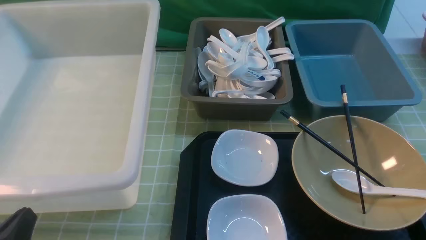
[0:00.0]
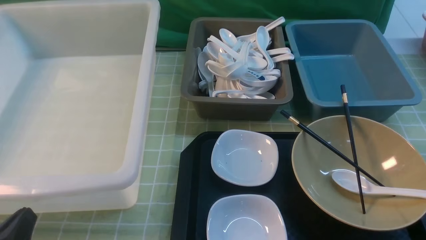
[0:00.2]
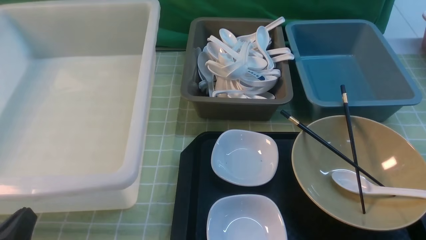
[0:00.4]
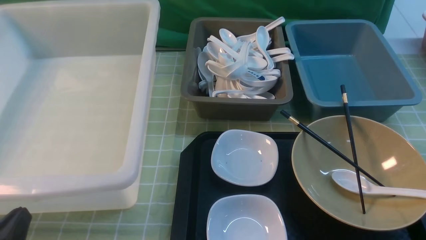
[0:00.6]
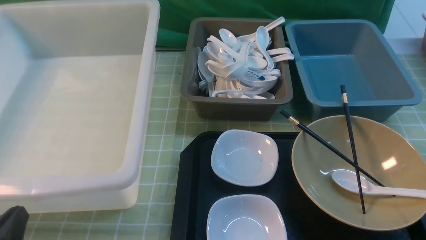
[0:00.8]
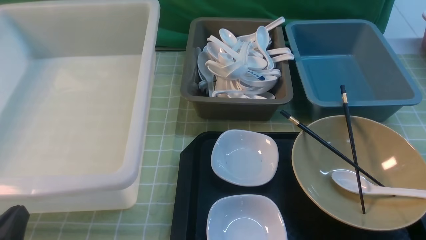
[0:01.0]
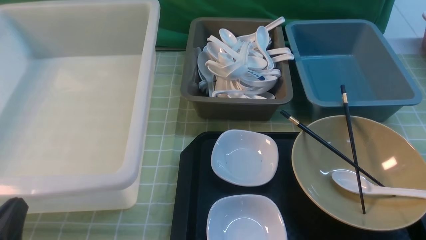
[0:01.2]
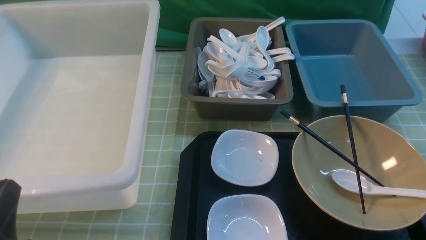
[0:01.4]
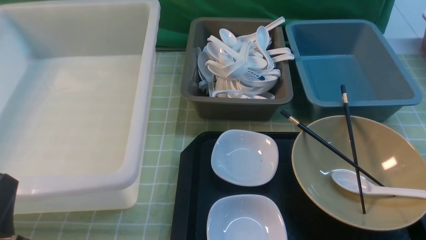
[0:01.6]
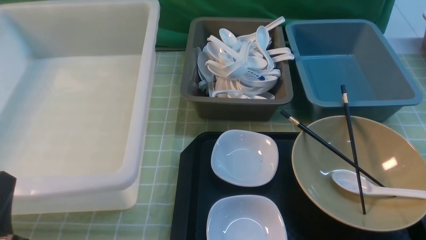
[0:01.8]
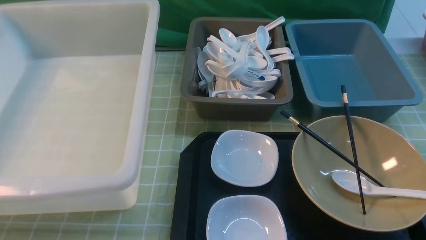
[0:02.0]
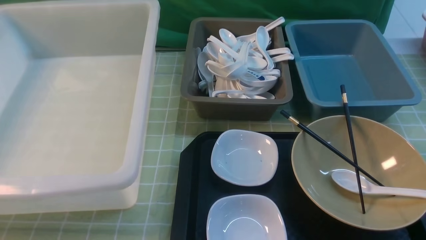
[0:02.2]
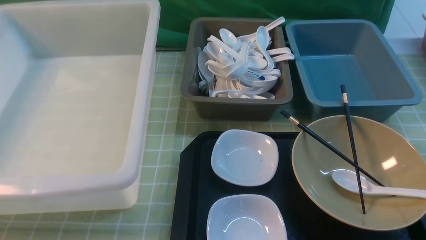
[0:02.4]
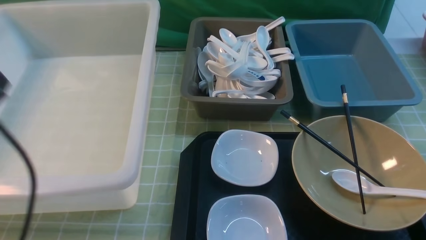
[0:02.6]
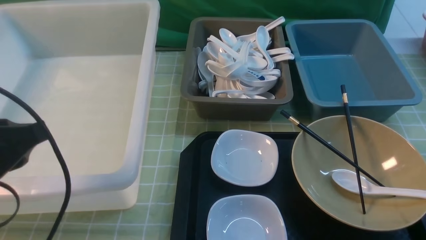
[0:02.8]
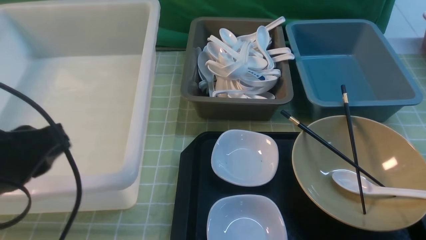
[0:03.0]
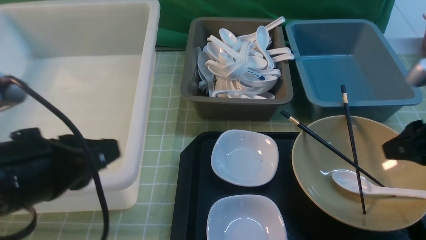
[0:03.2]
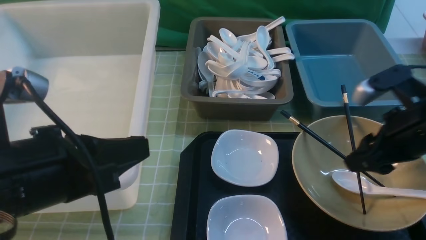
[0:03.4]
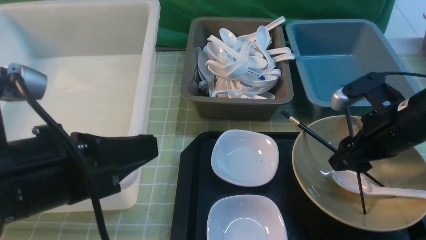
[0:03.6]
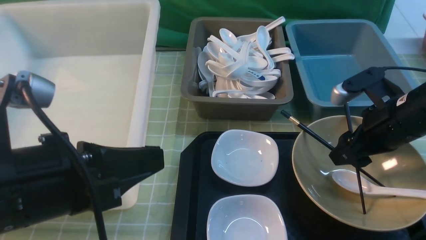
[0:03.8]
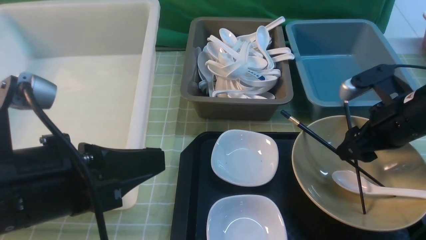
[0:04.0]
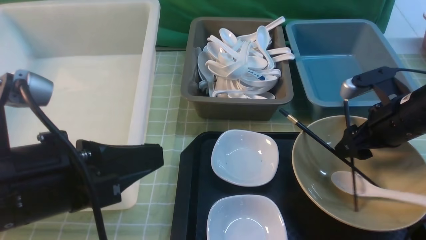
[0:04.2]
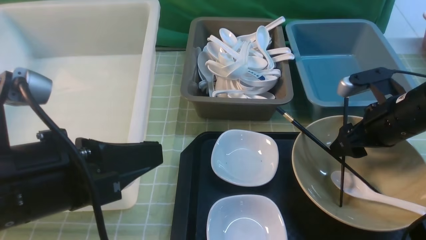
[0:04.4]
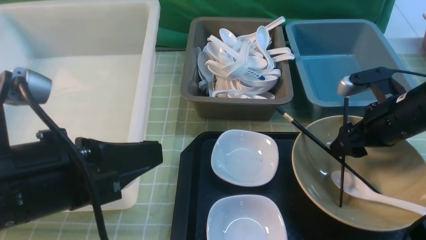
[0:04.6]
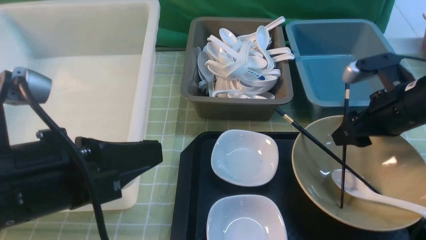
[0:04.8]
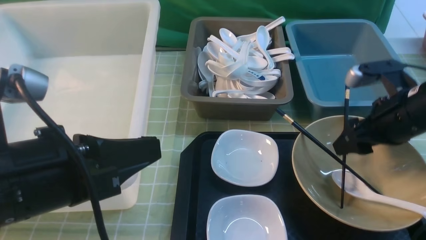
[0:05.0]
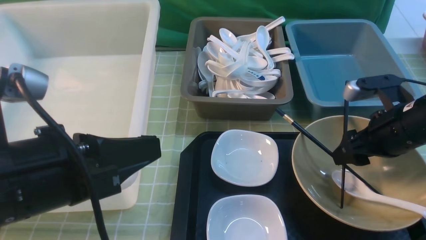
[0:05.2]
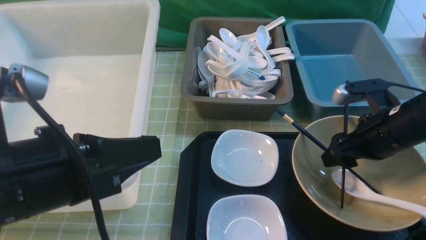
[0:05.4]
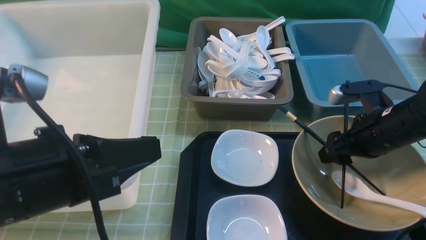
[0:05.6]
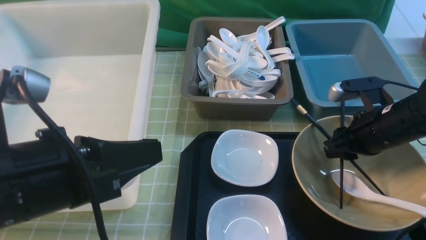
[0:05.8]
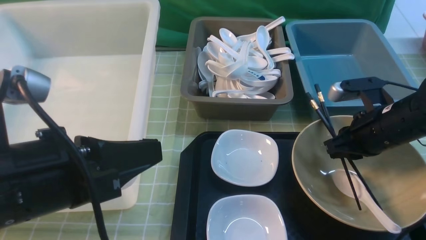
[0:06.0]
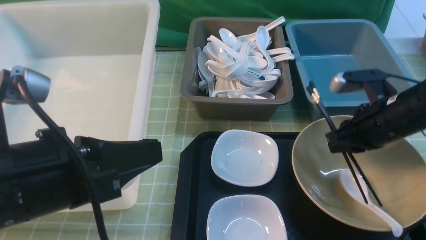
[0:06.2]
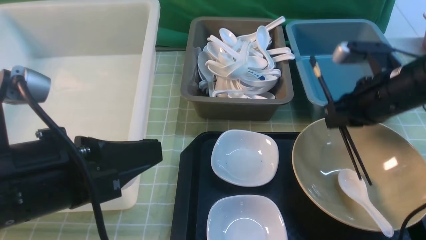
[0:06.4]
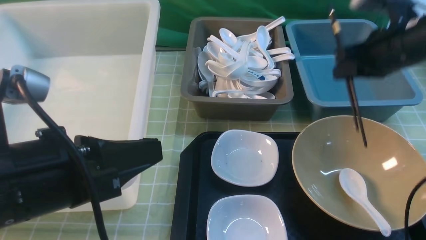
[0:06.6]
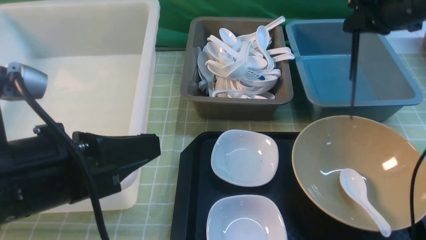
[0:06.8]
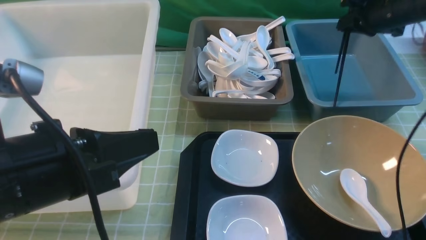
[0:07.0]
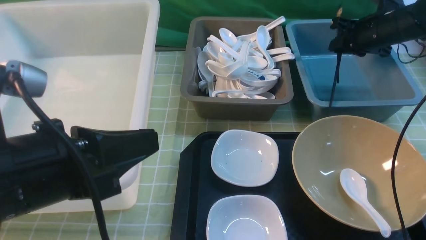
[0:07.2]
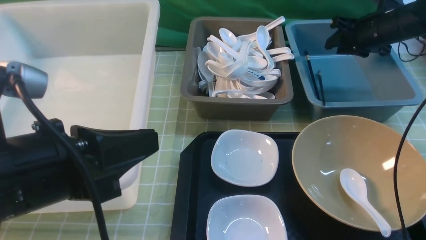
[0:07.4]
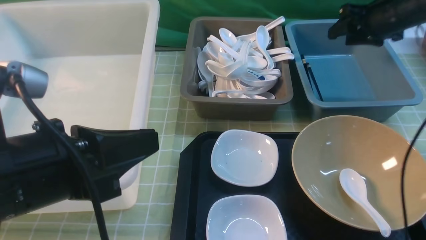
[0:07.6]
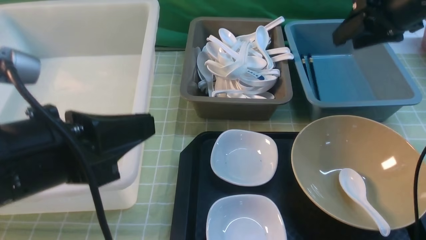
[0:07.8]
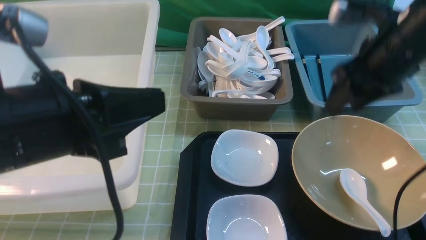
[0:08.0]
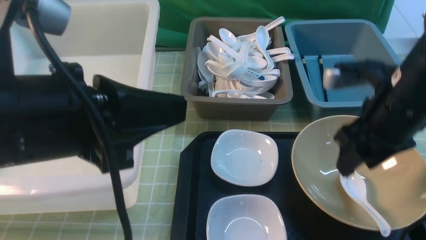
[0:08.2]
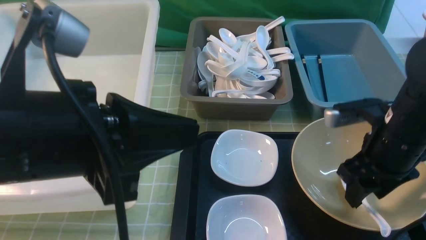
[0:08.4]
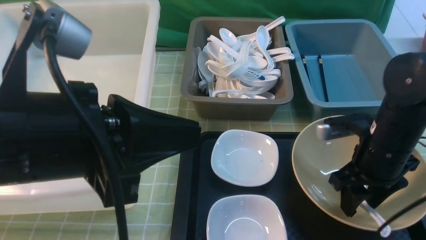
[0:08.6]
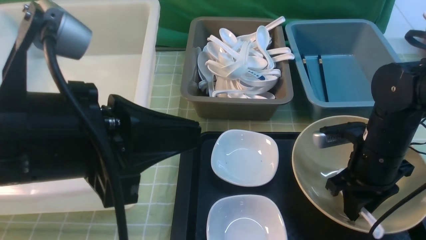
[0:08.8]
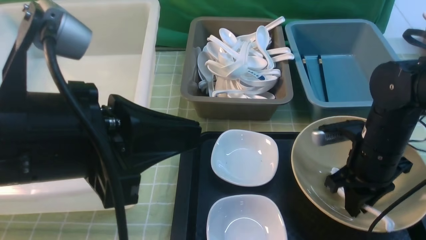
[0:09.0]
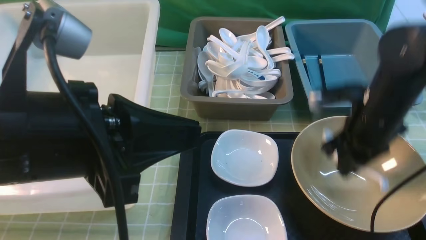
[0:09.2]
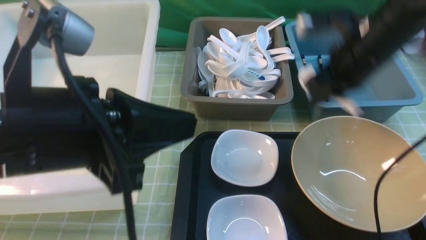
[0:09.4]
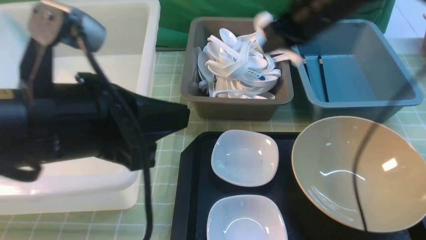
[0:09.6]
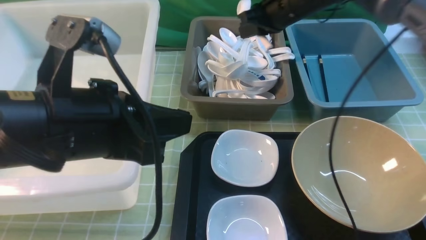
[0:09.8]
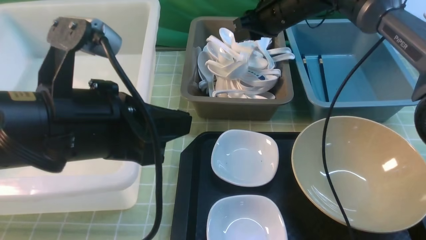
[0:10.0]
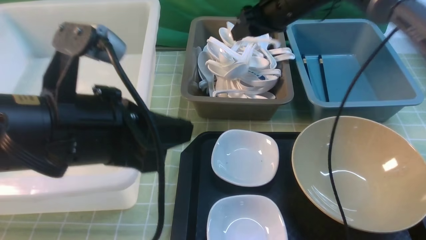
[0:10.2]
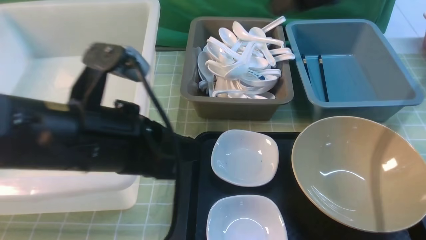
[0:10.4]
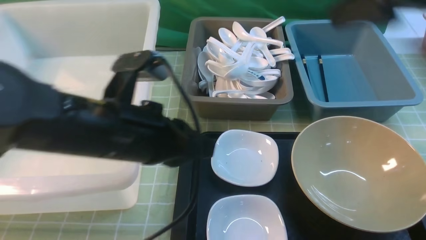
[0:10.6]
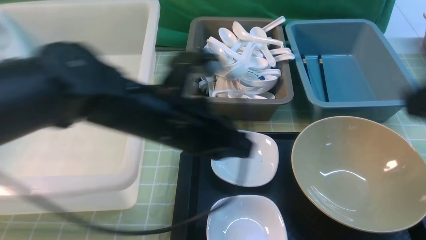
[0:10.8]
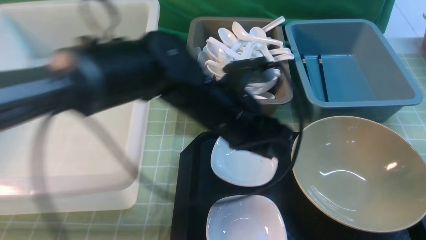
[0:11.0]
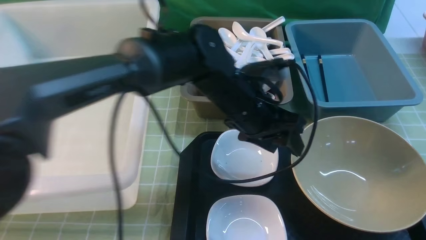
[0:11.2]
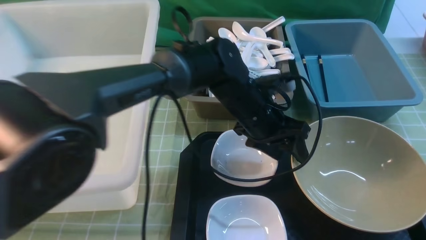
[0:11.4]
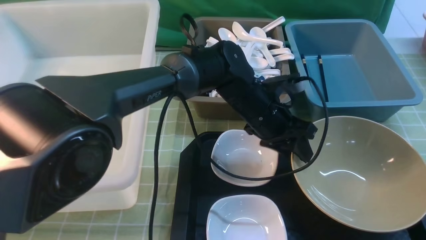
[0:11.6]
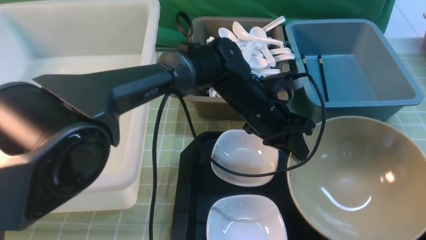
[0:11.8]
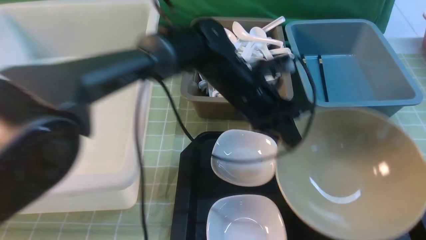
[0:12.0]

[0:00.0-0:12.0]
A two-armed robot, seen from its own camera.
Task of the whole recording: on green table put chopsticks spoon bowls plates into blue grey white boxes.
Step, 0:00.0 to 0:06.2: use the right arm to grab the chopsticks.
Step, 0:06.6 to 0:07.4: use the right arm to put the chopsticks into the small storage box on the right.
Step, 0:07.8 to 0:09.0: use the right arm to grab the soup spoon in the middle.
Step, 0:09.2 to 0:10.6: use the right arm to put the soup spoon into the small storage box in the middle.
Step, 0:10.8 to 0:11.6: use the left arm to grab the yellow noodle bowl on the left.
0:01.6 to 0:03.0: The left gripper travels upward and forward by some 15 cm.
0:03.0 to 0:04.4: The right gripper heads forward and downward, covering some 15 cm, and opens; the left gripper is displaced to the right by approximately 5 cm.
0:04.4 to 0:06.0: The right gripper closes its fingers.
0:06.0 to 0:07.6: The right gripper travels forward and upward by about 15 cm, and opens its fingers.
0:07.6 to 0:09.0: The left gripper ends up about 5 cm from where it was; the right gripper shifts approximately 20 cm backward, downward and to the left, and closes up.
0:09.0 to 0:10.4: The left gripper moves forward and downward, approximately 10 cm, while the right gripper travels upward by roughly 20 cm, and opens up.
0:10.4 to 0:12.0: The right gripper shifts some 30 cm backward, and closes its fingers. Meanwhile the left gripper shifts some 20 cm forward and to the right, and opens, then closes again.

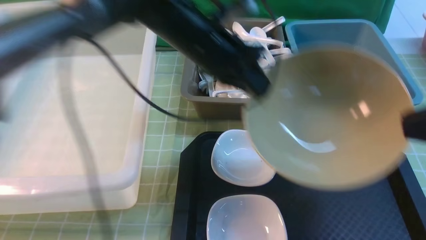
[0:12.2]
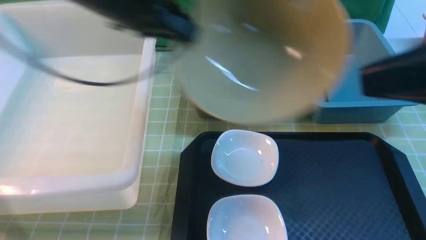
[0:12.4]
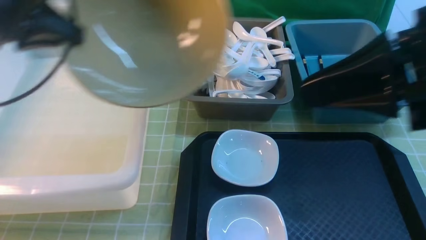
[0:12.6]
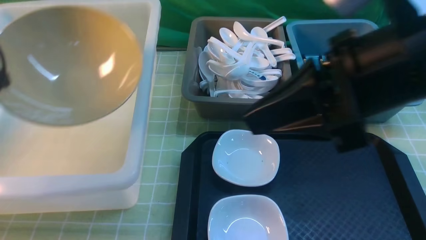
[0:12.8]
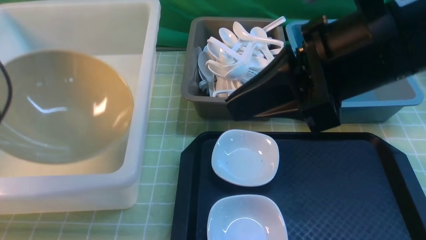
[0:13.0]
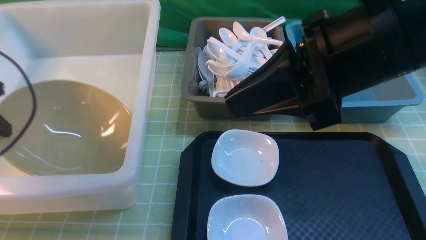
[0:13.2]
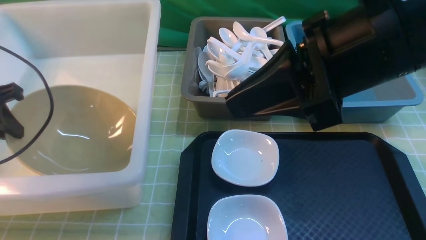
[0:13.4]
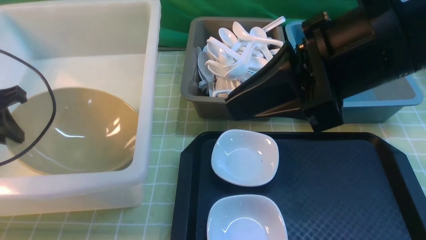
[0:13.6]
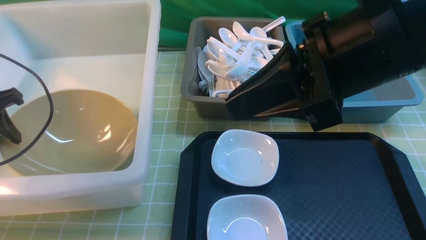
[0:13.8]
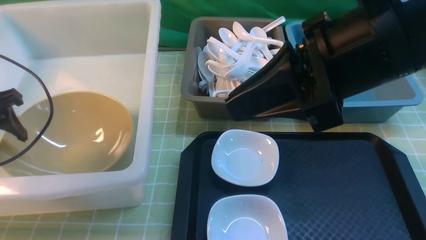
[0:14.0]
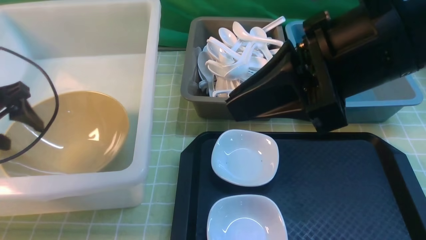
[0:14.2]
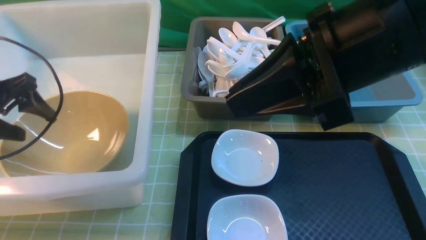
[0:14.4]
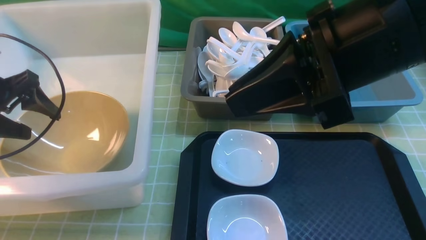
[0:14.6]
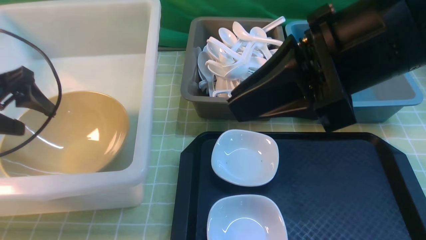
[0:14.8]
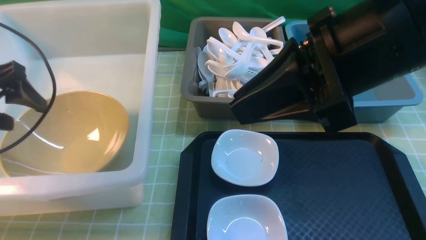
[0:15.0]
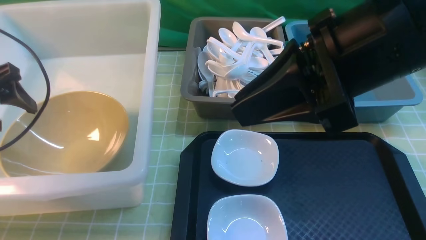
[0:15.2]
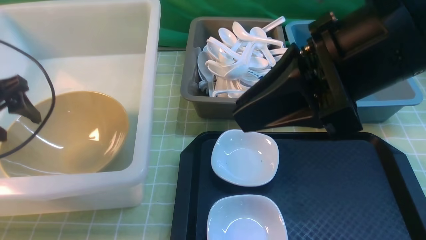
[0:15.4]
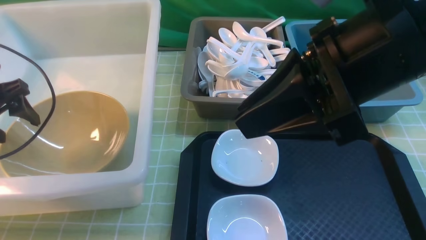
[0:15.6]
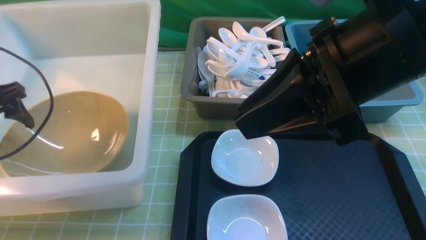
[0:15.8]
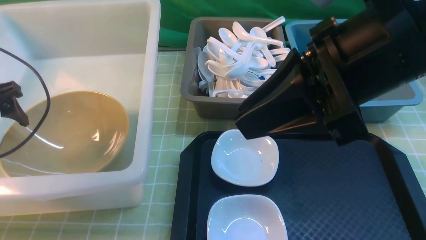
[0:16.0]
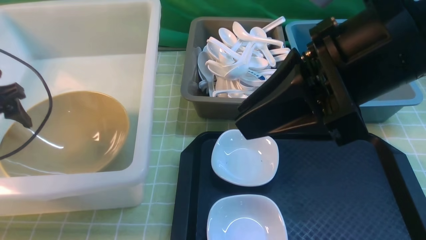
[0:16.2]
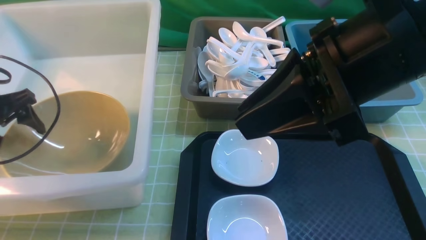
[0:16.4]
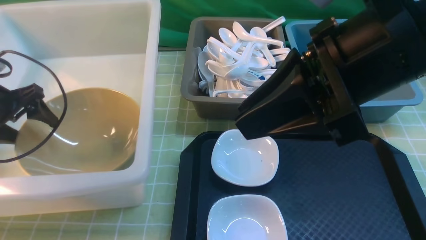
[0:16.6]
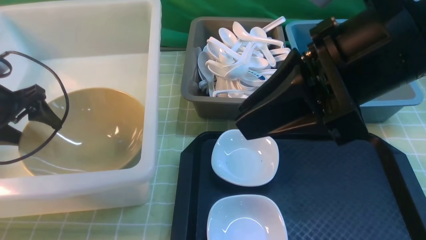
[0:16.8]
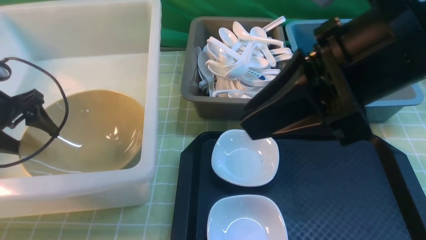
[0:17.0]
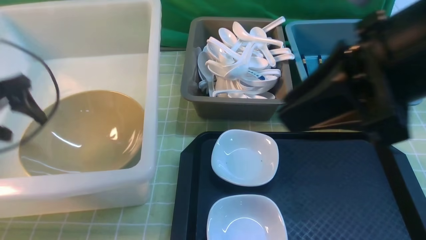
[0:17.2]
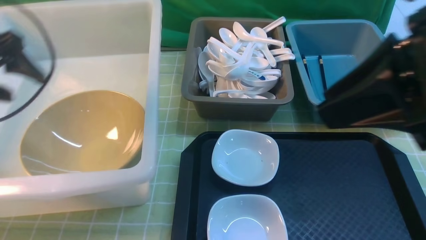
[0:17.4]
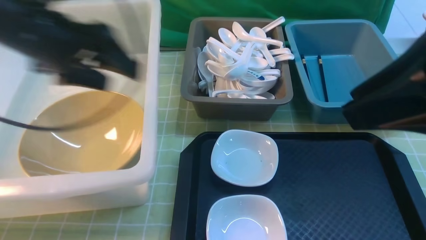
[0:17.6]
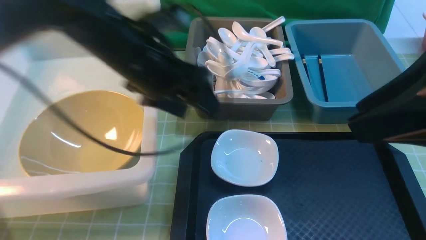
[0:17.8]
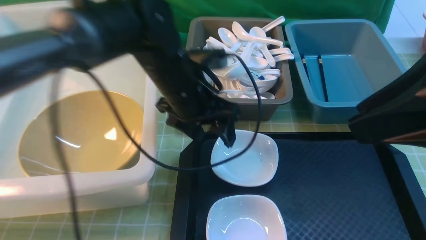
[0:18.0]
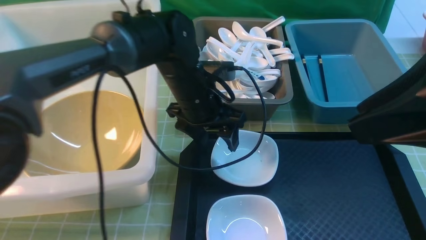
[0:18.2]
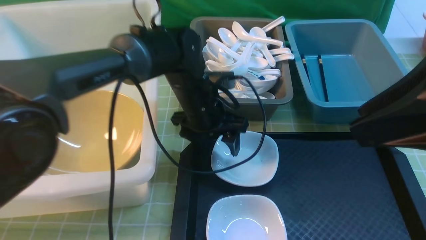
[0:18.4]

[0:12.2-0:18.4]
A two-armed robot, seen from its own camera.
Task of the whole recording: on green table put chopsticks spoon bowls plates into blue grey white boxes.
Step, 0:12.2 to 0:17.2: use the left arm to put the noodle bowl into the large storage box on the left.
0:12.2 to 0:13.8: The right gripper shifts about 15 cm to the left and forward; the left gripper heads to the left, covering approximately 30 cm, and opens its fingers.
0:13.8 to 0:15.4: The left gripper opens up.
0:15.4 to 0:16.8: The grippers move only a little.
0:16.8 to 0:18.4: The right gripper moves to the right and backward, about 10 cm, while the left gripper goes approximately 35 cm to the right.
